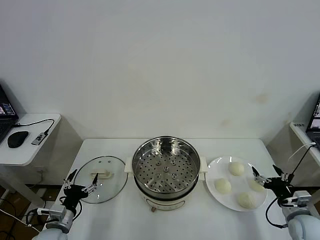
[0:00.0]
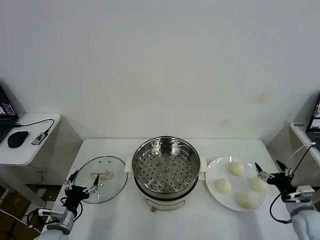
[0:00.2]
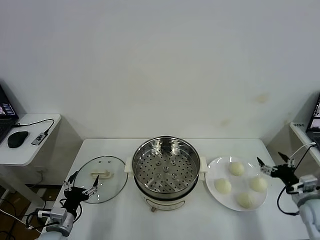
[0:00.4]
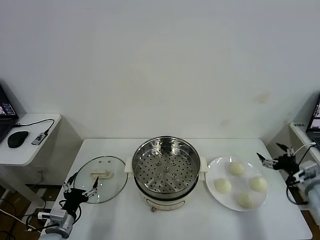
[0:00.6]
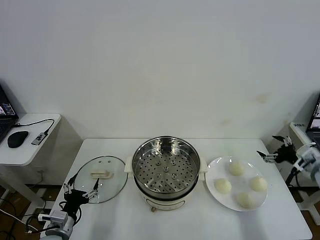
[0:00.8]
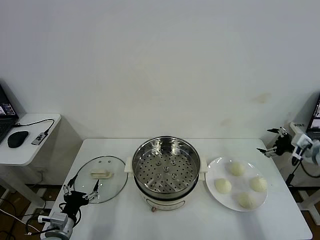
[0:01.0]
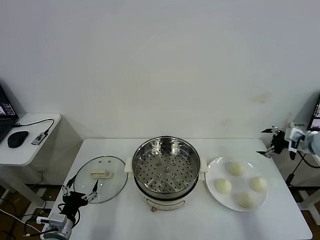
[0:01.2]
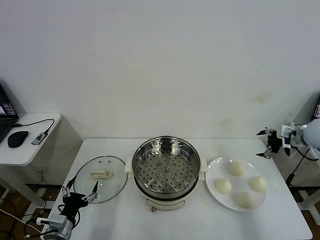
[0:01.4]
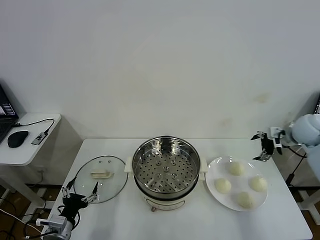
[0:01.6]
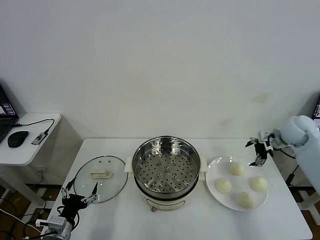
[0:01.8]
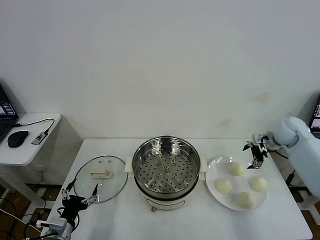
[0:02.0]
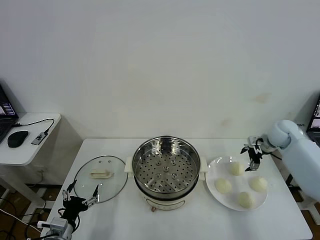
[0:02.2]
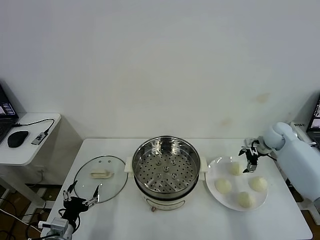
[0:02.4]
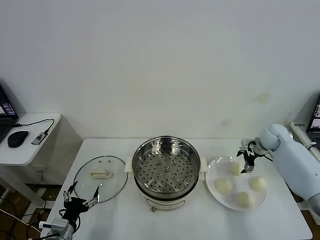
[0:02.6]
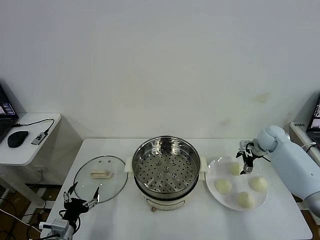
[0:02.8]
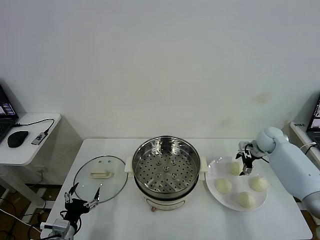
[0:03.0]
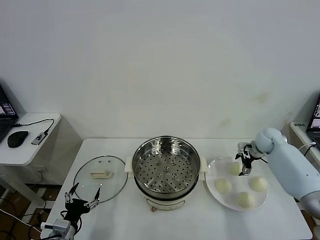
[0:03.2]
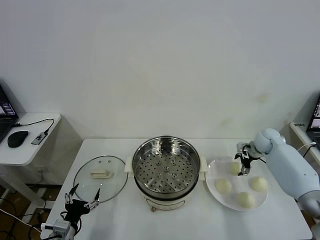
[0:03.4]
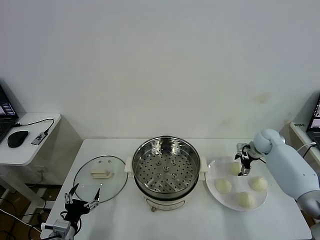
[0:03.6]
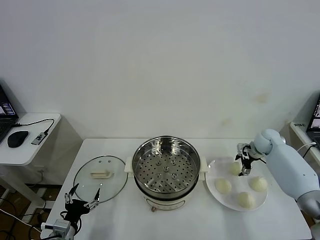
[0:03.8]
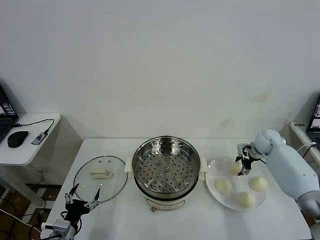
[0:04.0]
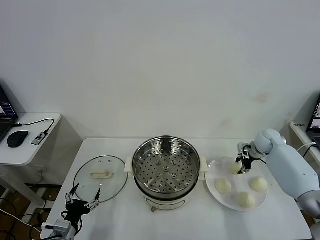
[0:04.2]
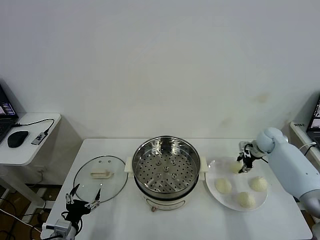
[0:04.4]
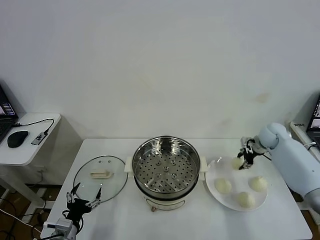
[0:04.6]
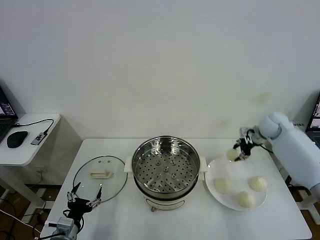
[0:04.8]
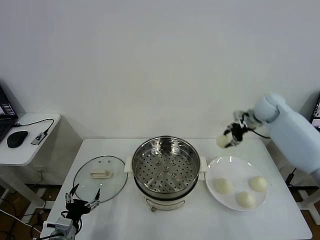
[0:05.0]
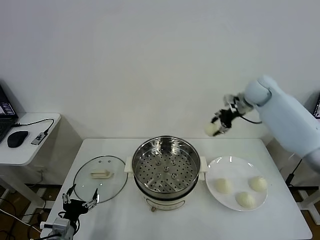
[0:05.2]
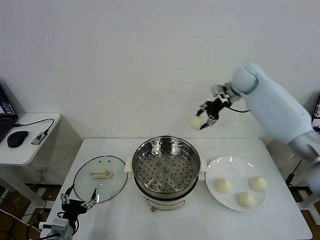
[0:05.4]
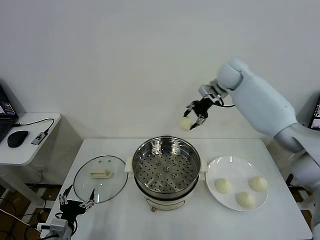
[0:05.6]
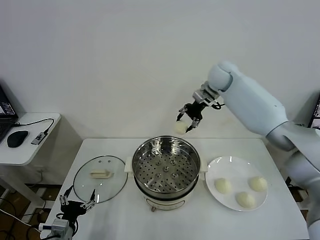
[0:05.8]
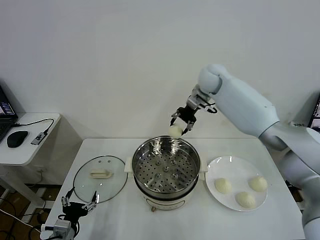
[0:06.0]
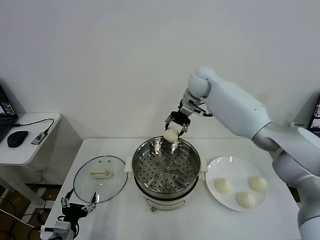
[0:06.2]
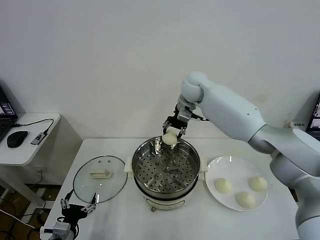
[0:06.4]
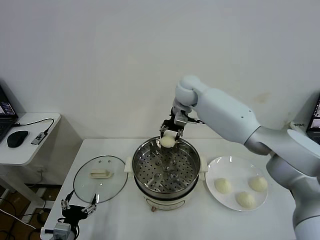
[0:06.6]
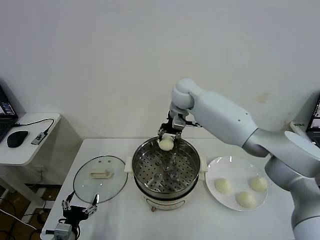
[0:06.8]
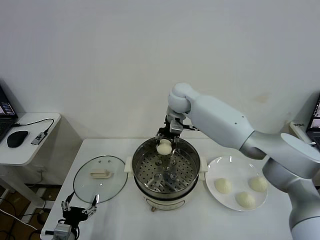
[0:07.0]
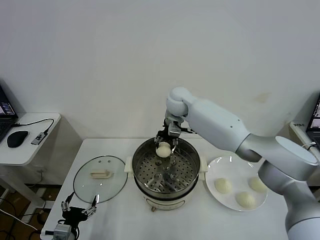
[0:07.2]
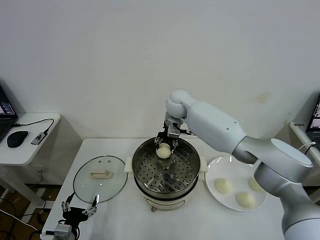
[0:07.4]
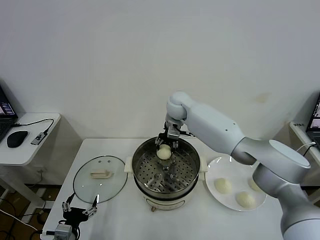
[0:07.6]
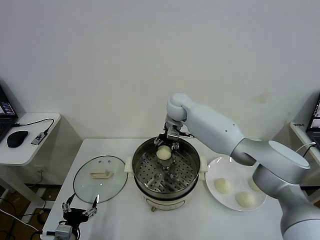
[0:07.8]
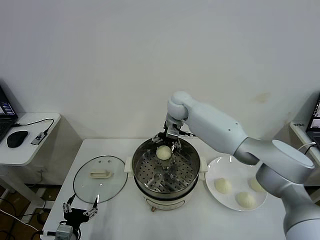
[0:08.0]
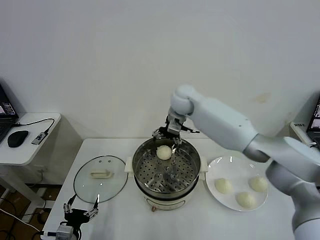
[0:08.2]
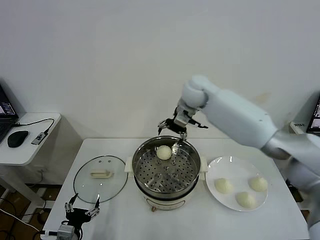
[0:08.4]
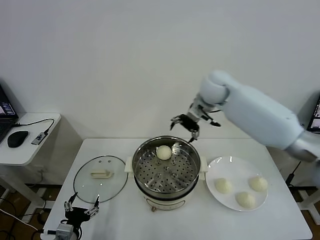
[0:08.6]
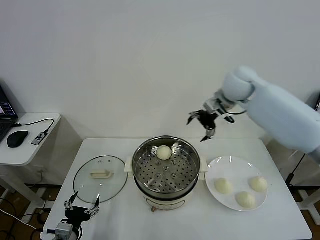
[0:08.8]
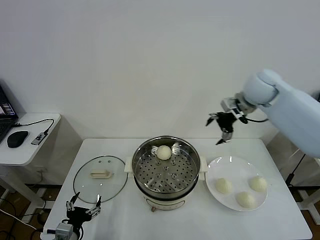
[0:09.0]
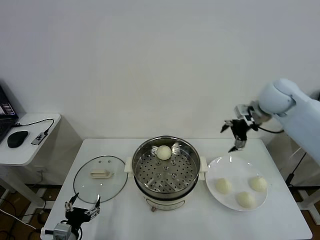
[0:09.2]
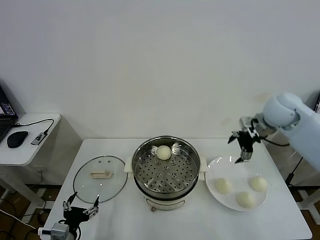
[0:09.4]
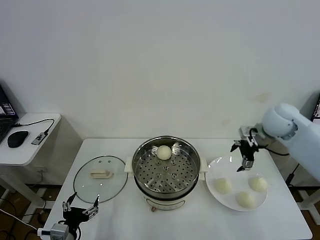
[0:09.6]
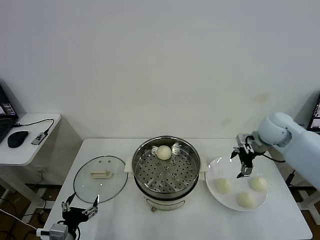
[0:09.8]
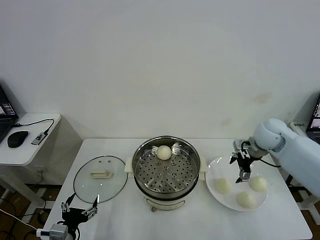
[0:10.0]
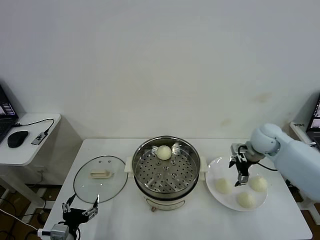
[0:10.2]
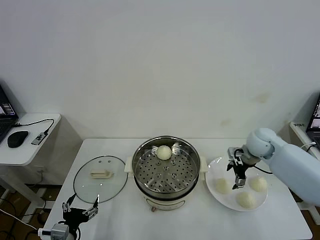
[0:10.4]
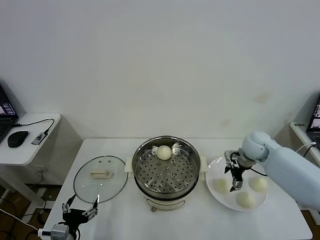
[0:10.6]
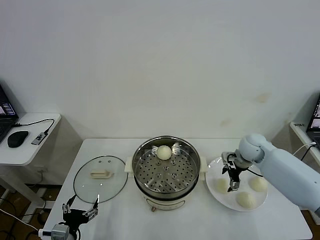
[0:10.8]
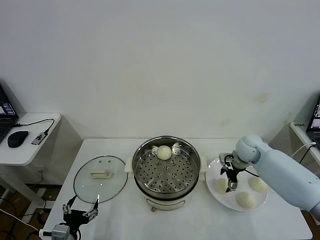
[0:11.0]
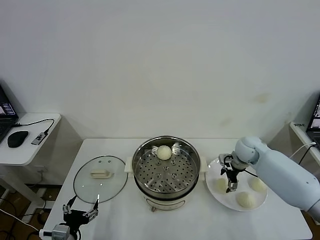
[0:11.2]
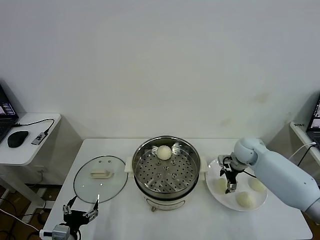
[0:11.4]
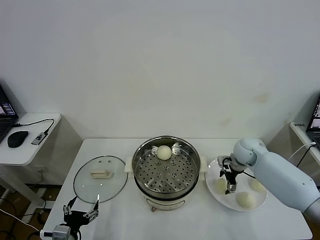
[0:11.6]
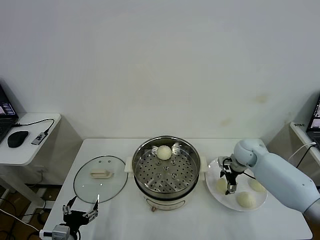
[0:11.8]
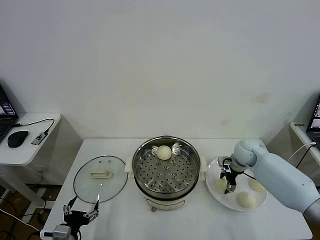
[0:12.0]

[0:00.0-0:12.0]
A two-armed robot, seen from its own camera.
Task of the whole recording: take steamed baozi put them in steamer then cover it.
Step, 0:00.0 to 0:04.2: Grasp the baozi in the plate with right gripper.
Step, 0:04.6 to 0:08.0: Place the baozi on the steamer with right gripper.
0:01.6 to 0:03.0: The right gripper travels downward by approximately 10 cm.
0:04.4 to 0:06.0: The right gripper shifts some 35 cm to the left and upward.
0:06.0 to 0:07.6: The right gripper heads downward and to the left, covering about 10 cm.
0:07.6 to 0:09.0: The right gripper is displaced to the right by some 25 cm, and opens its fingers.
0:09.0 to 0:10.4: The right gripper moves downward, some 20 cm.
0:10.4 to 0:12.0: The right gripper moves downward, roughly 5 cm, and closes its fingers.

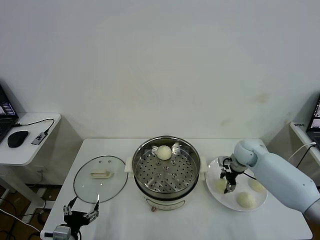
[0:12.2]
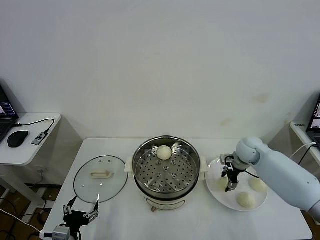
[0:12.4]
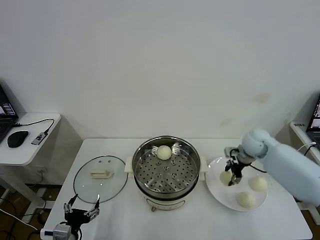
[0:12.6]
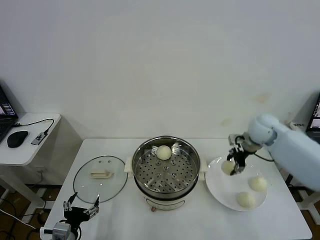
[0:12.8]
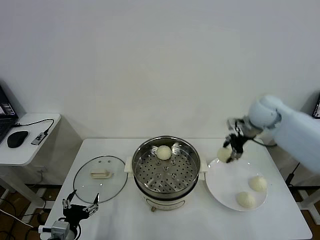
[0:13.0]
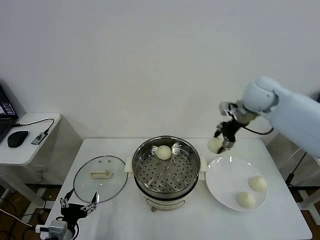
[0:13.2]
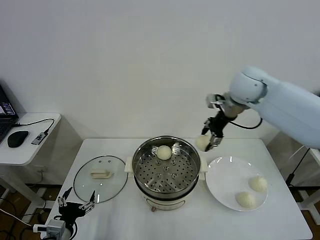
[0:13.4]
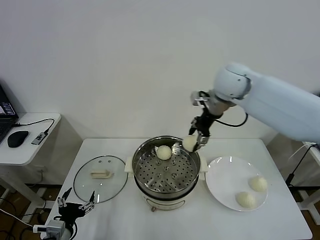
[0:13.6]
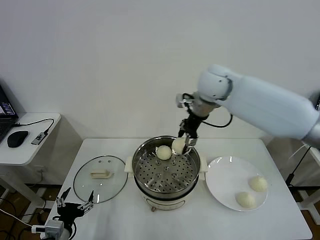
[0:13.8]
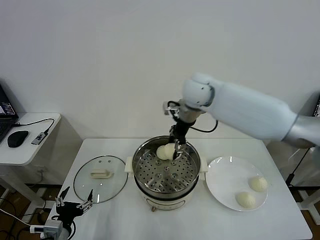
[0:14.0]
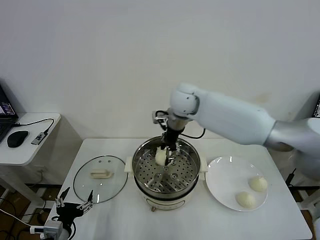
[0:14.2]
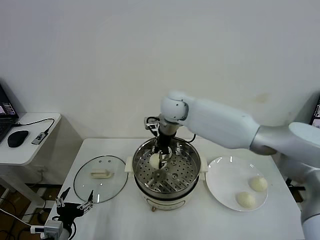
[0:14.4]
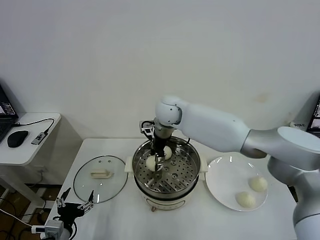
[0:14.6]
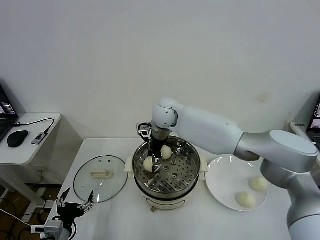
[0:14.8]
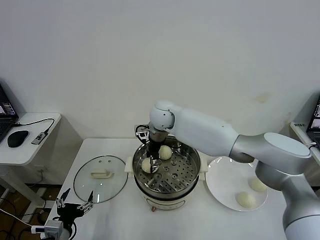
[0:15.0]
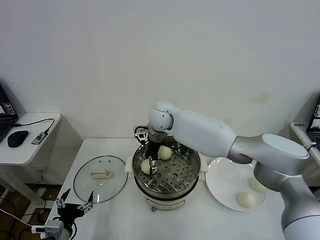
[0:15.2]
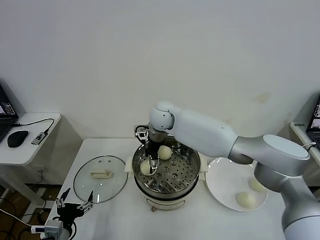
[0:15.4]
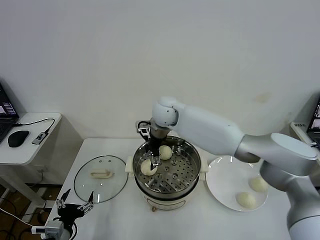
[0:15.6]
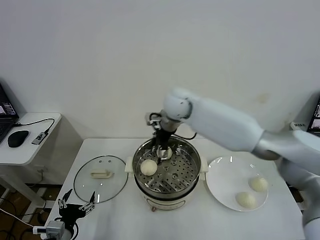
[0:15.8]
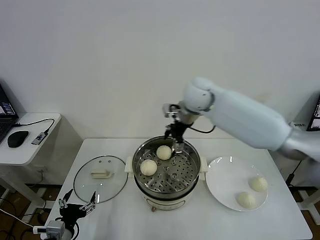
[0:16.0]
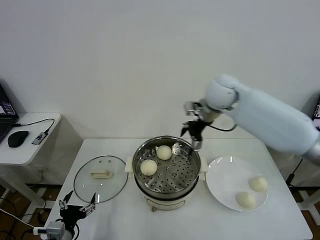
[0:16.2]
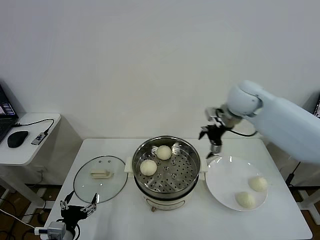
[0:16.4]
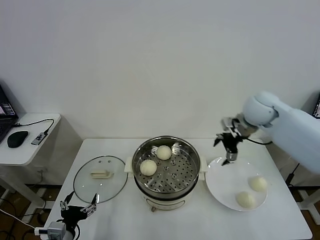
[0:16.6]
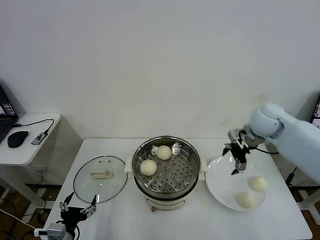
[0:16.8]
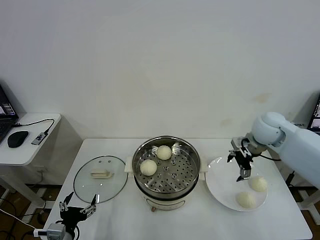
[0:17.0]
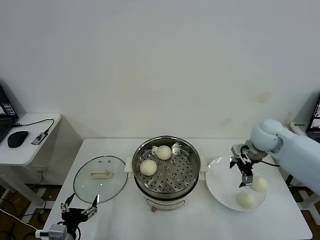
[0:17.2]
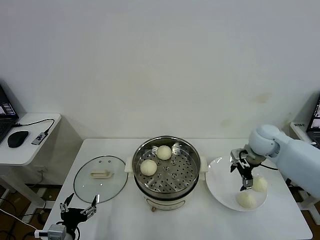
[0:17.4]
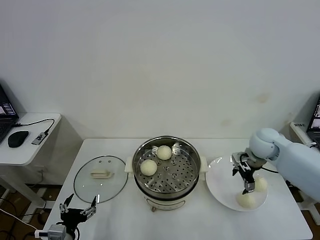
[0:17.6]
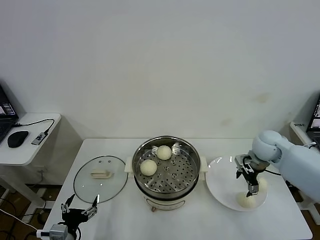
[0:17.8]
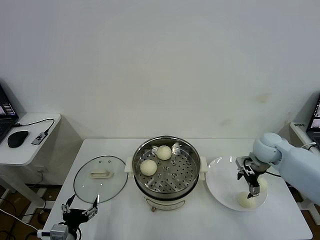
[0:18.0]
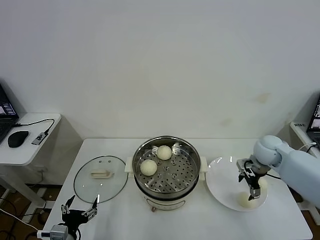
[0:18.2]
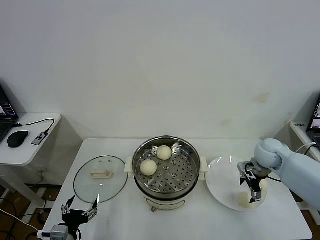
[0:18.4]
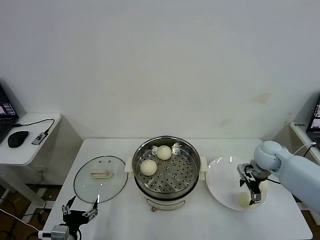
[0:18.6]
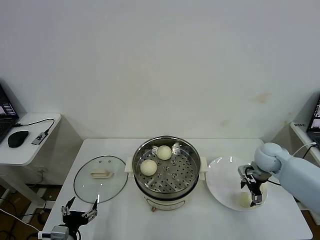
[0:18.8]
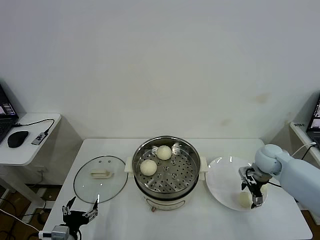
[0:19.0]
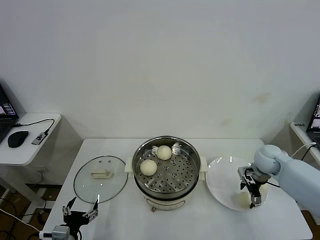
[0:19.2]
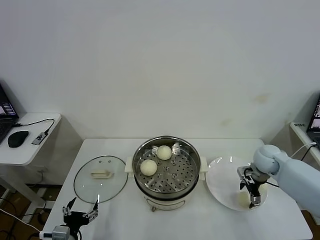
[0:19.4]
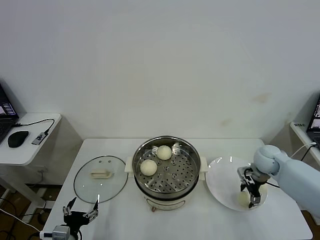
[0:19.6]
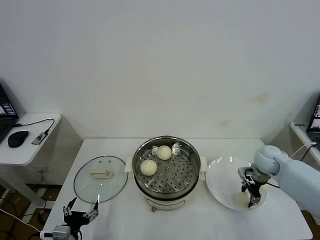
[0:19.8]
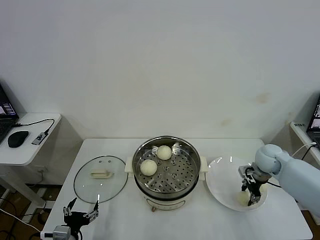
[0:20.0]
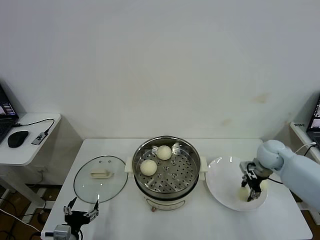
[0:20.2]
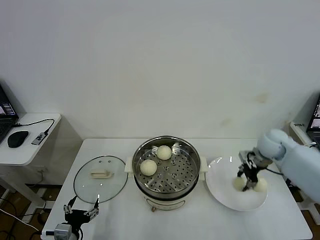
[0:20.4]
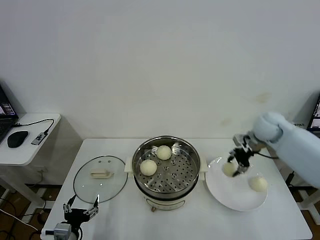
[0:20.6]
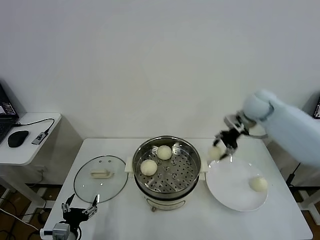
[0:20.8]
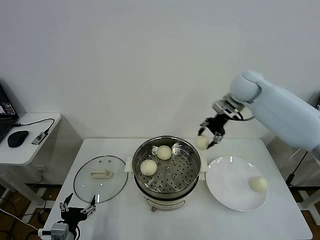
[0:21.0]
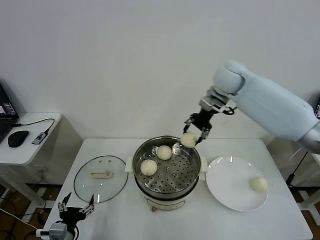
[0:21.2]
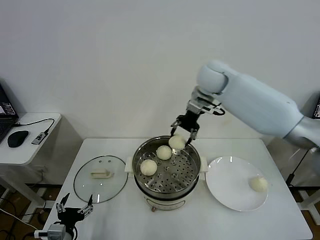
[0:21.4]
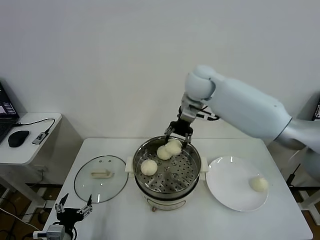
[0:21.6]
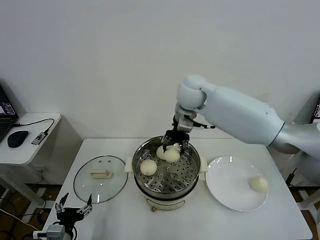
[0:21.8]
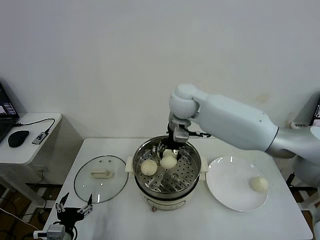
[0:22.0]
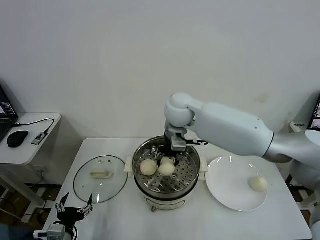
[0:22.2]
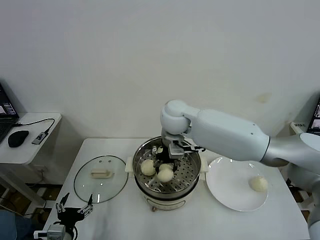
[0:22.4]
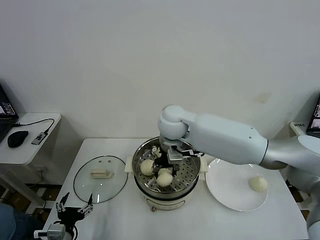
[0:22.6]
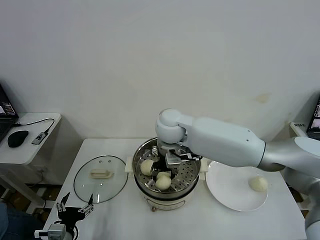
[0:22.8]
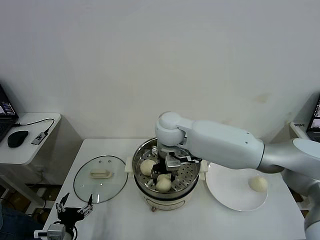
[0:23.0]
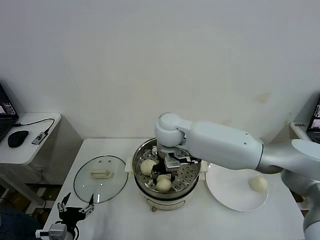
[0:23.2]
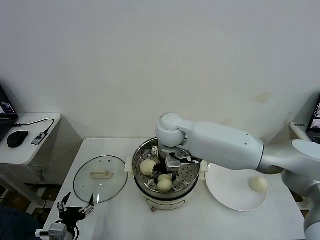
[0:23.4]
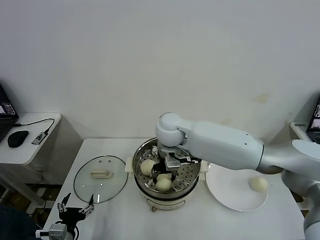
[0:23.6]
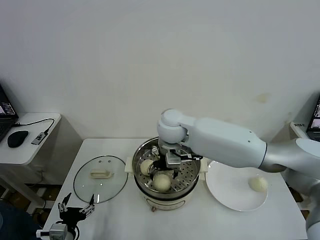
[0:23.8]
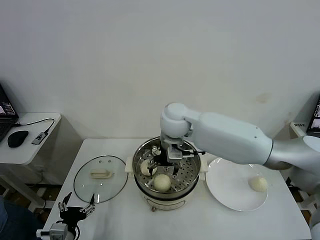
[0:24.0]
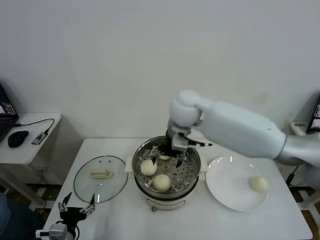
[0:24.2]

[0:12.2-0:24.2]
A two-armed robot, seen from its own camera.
Task of the whole recording: take steamed baozi put them in steamer then cover it.
Step, 0:12.6 to 0:15.4: Place the baozi on the steamer with right gripper.
Step, 0:15.6 to 0:20.2: Grasp the baozi in the plate with right gripper.
Step, 0:20.4 to 0:23.8: Place the baozi on the steamer with right gripper.
0:12.2 to 0:13.8: The right gripper is displaced upward and to the left by some 30 cm.
0:13.8 to 0:15.2: The right gripper moves to the left and downward, roughly 15 cm, and opens its fingers.
0:15.2 to 0:16.6: The right gripper shifts roughly 30 cm to the right.
0:16.6 to 0:18.2: The right gripper shifts roughly 15 cm downward and to the right.
0:18.2 to 0:19.8: The right gripper closes up.
0:19.8 to 0:21.2: The right gripper heads upward, to the left and forward, covering roughly 35 cm.
0:21.2 to 0:22.6: The right gripper moves to the left, backward and downward, some 20 cm.
0:22.6 to 0:24.2: The right gripper travels upward and to the right by about 10 cm, and opens its fingers.
